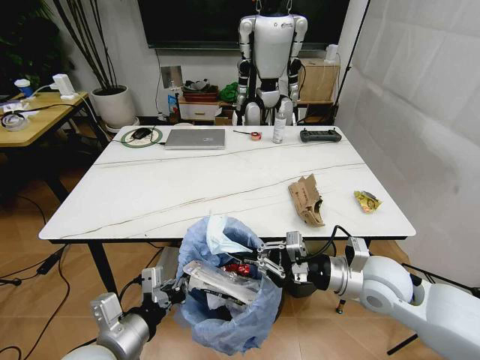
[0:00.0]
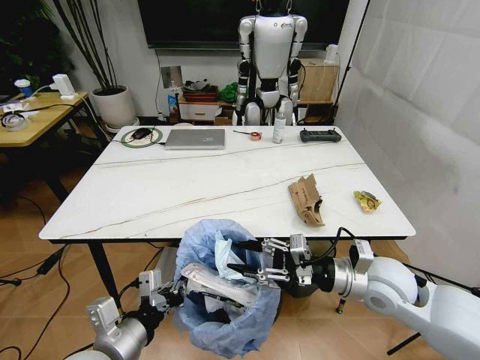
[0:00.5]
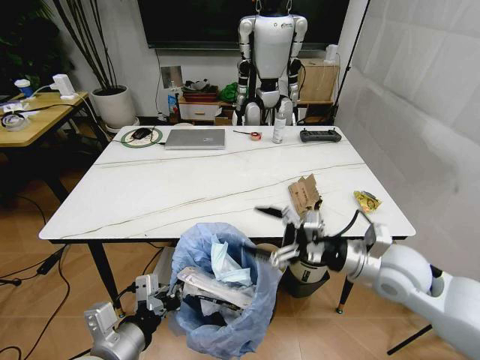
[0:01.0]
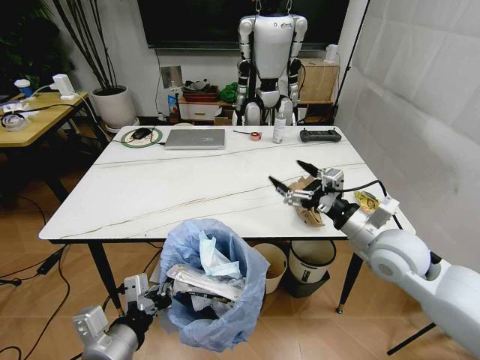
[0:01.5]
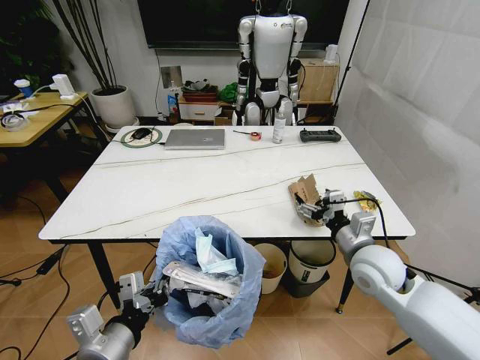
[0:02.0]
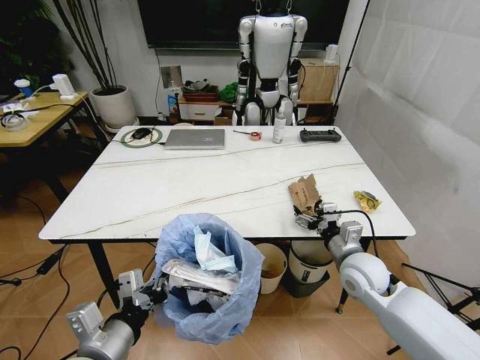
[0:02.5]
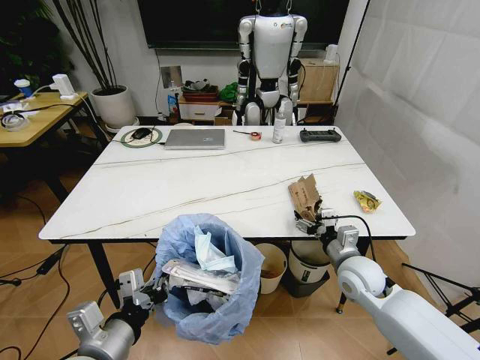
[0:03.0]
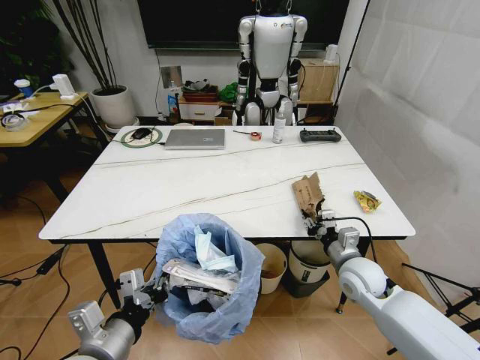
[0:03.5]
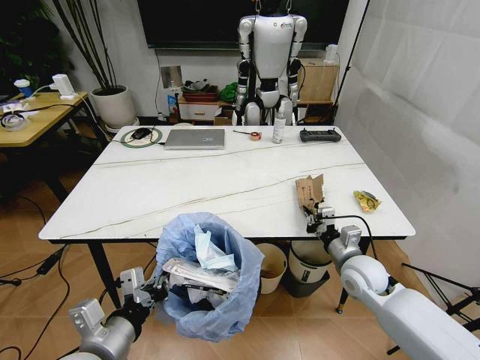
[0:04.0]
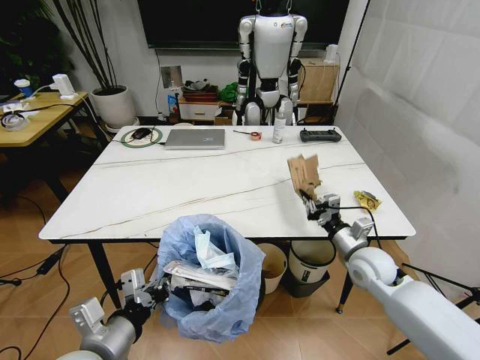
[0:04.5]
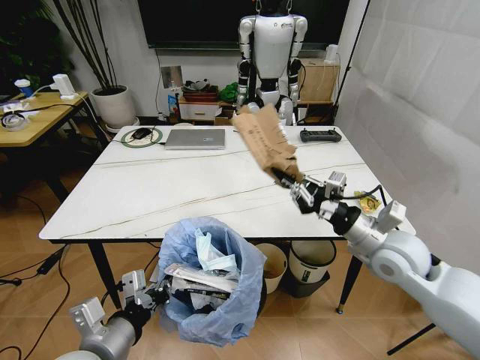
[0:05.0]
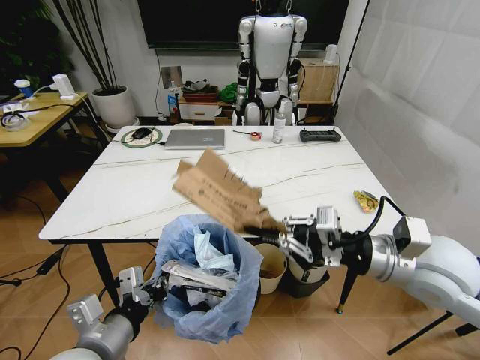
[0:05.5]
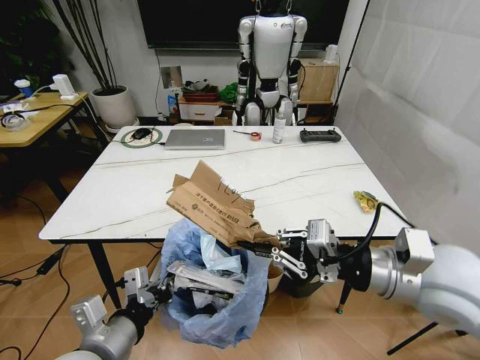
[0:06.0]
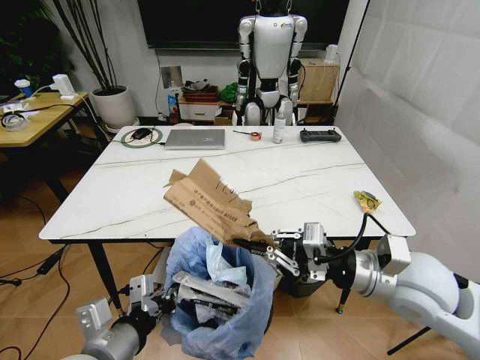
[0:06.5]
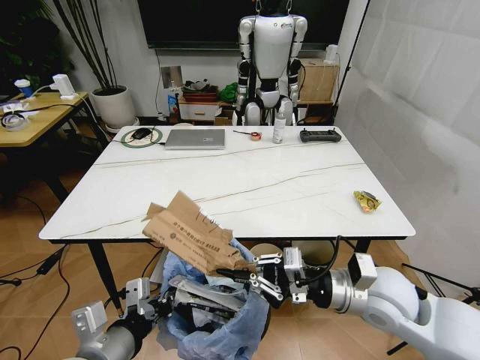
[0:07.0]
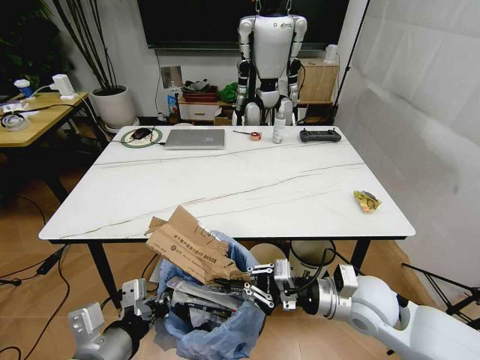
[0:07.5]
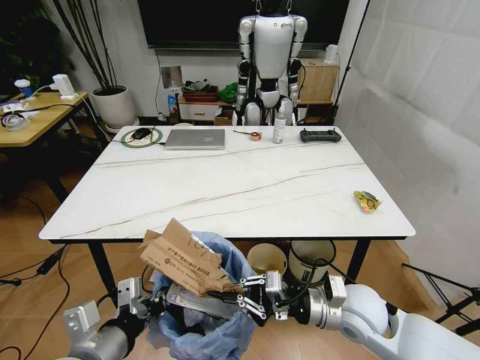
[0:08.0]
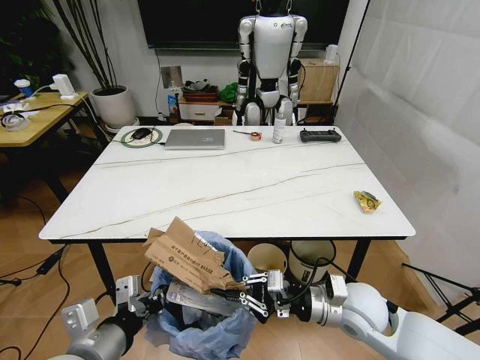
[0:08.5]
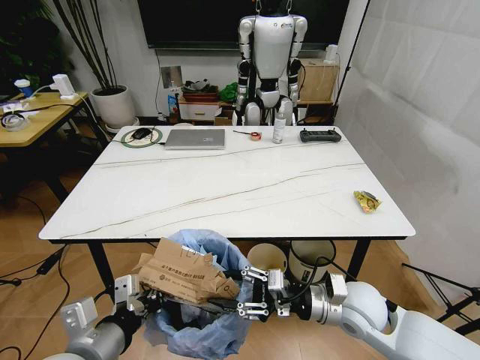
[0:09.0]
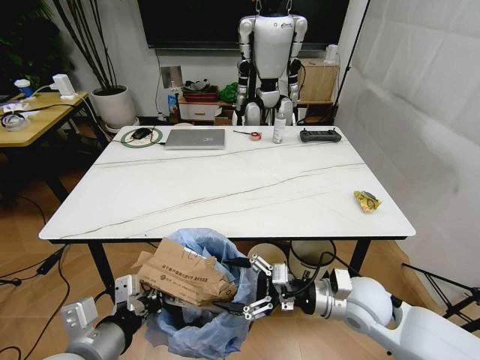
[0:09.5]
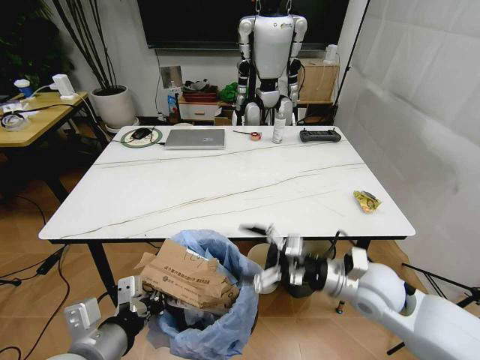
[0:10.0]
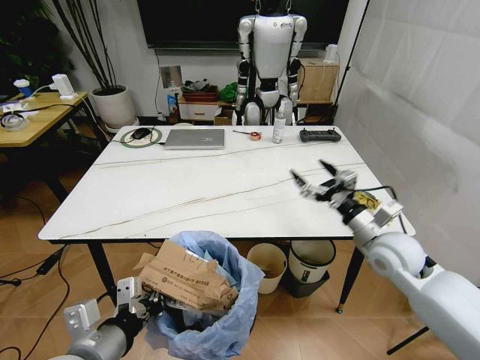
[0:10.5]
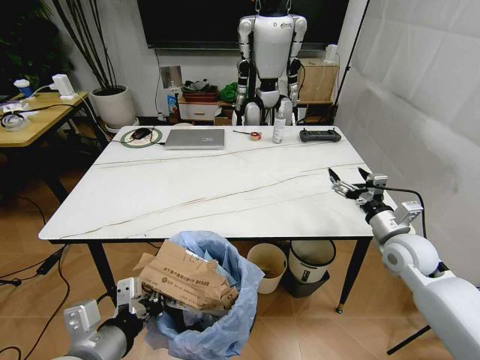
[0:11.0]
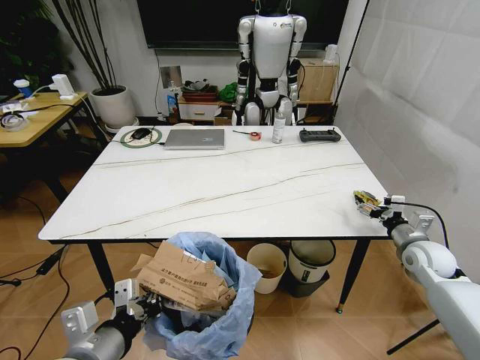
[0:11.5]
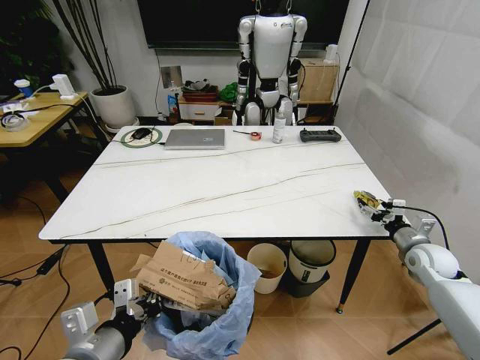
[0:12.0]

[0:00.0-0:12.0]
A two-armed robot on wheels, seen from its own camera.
Task of the whole recording: Pick up the trash bin and place the trash from the table into it.
0:00.0 to 0:02.0: The right gripper opens up.
0:02.0 to 0:04.0: The right gripper shifts approximately 5 cm downward, and closes its fingers.
0:04.0 to 0:06.0: The right gripper moves upward and backward, about 25 cm.
0:06.0 to 0:08.0: The right gripper moves downward, about 15 cm.
0:08.0 to 0:10.0: The right gripper shifts by roughly 5 cm, and opens.
0:10.0 to 0:12.0: The right gripper shifts approximately 25 cm to the right and forward.

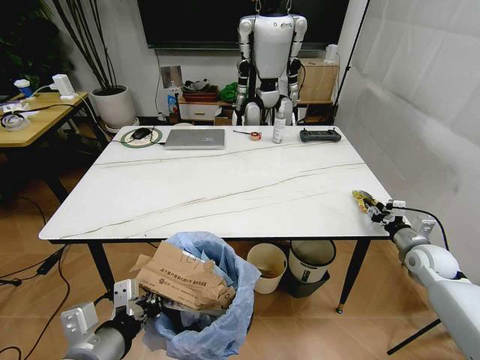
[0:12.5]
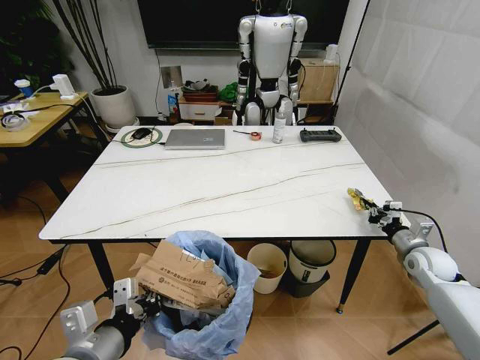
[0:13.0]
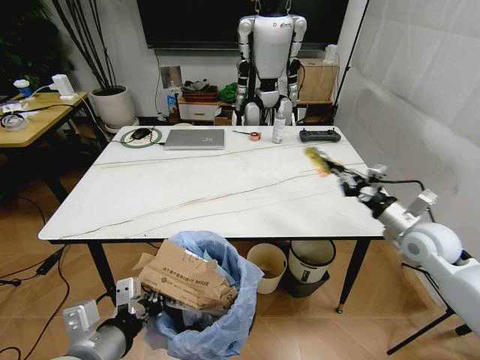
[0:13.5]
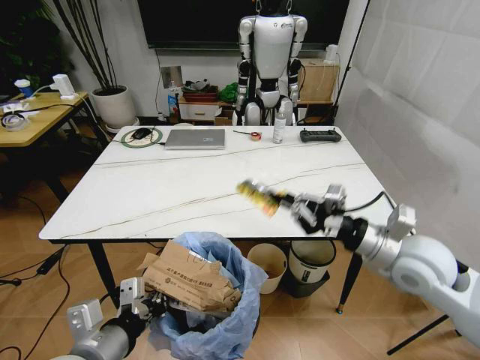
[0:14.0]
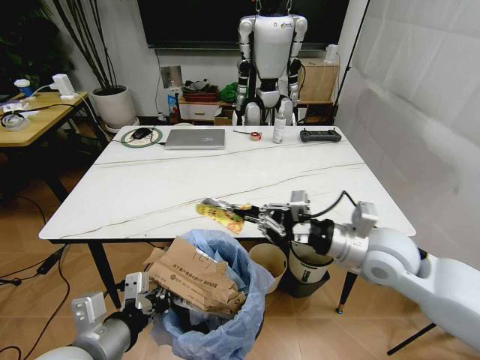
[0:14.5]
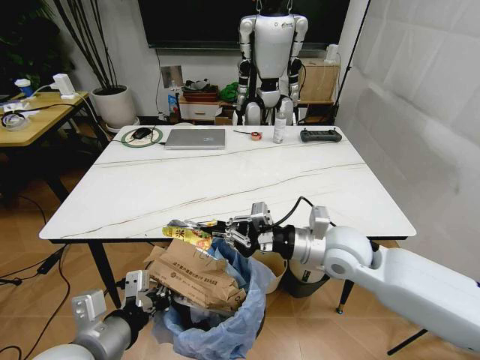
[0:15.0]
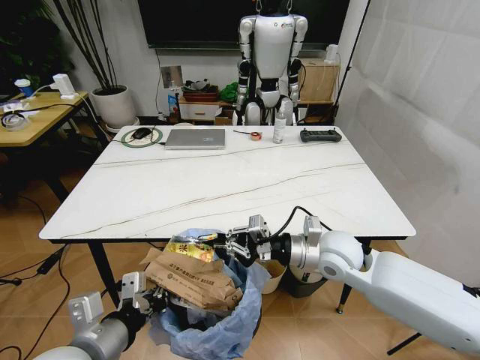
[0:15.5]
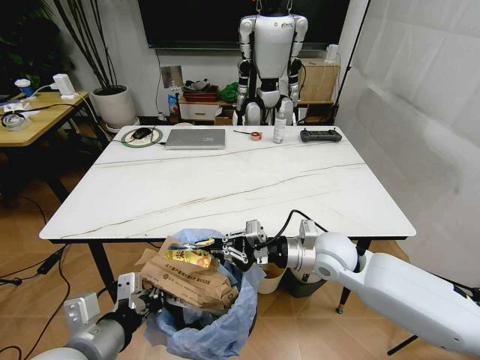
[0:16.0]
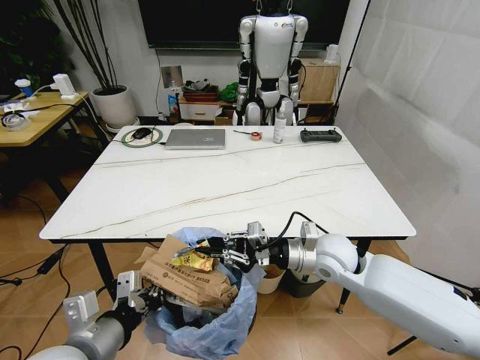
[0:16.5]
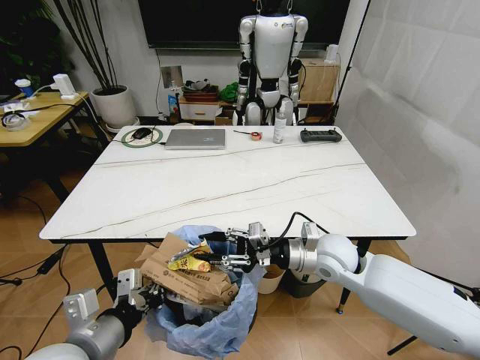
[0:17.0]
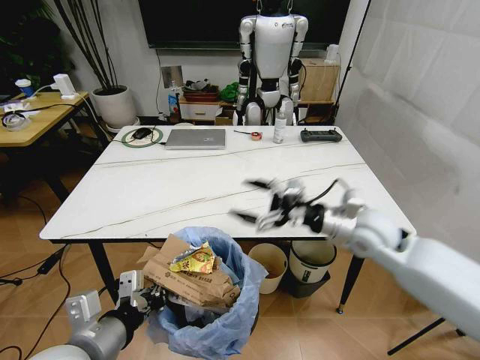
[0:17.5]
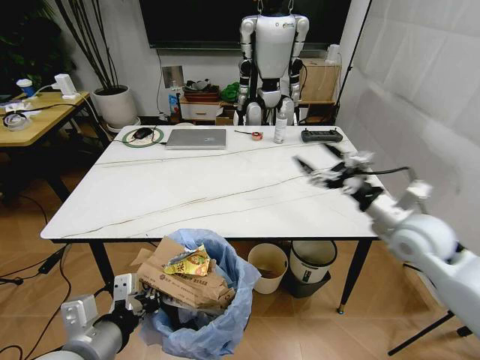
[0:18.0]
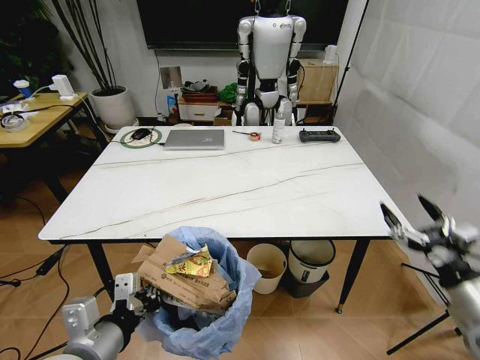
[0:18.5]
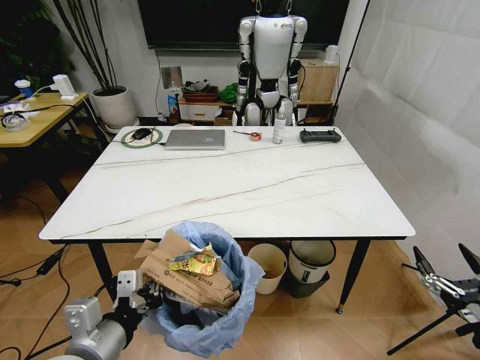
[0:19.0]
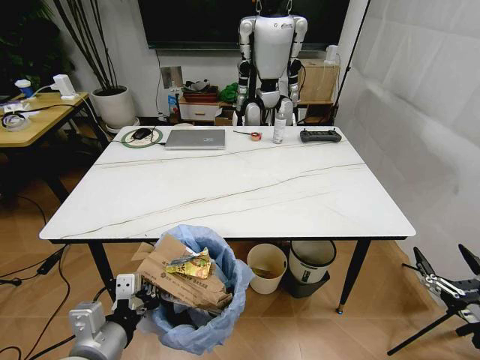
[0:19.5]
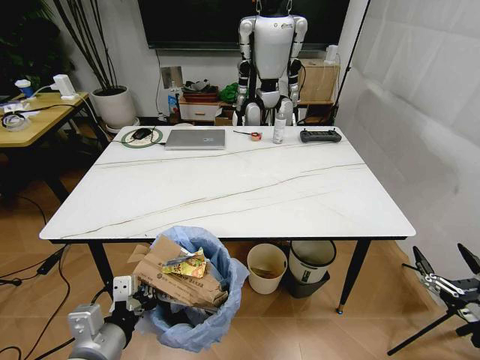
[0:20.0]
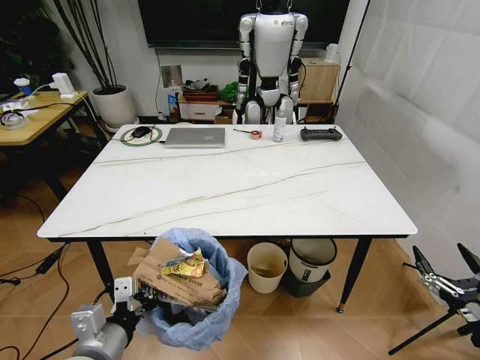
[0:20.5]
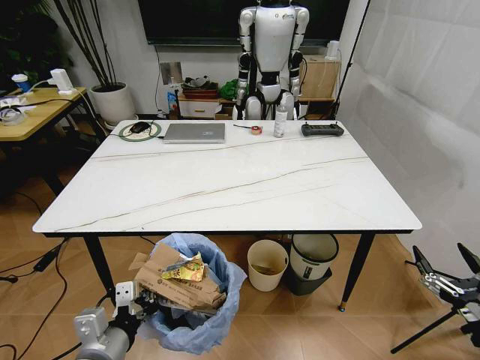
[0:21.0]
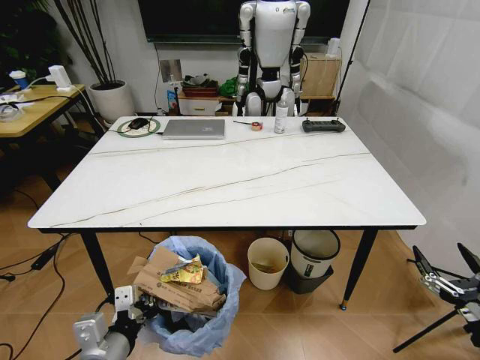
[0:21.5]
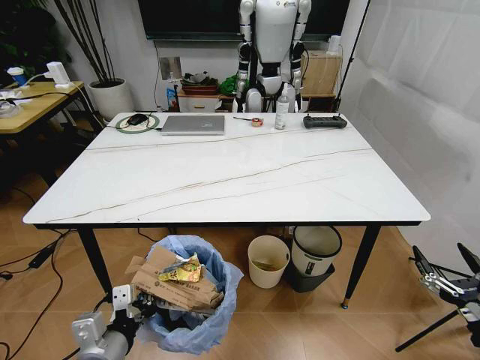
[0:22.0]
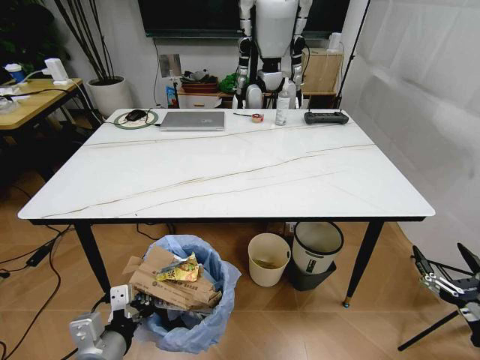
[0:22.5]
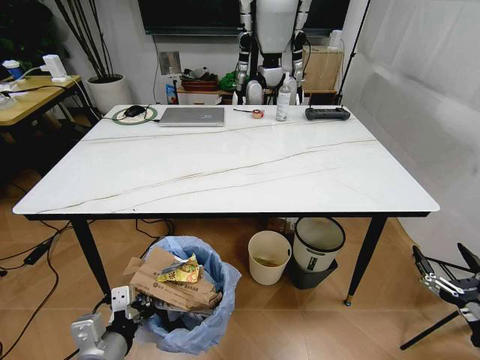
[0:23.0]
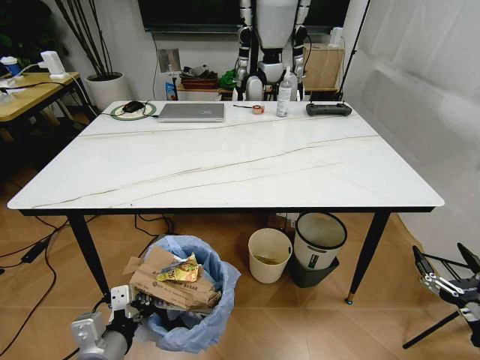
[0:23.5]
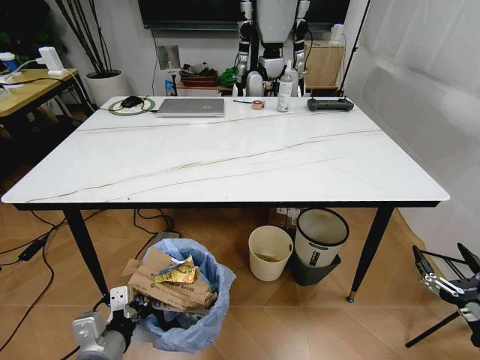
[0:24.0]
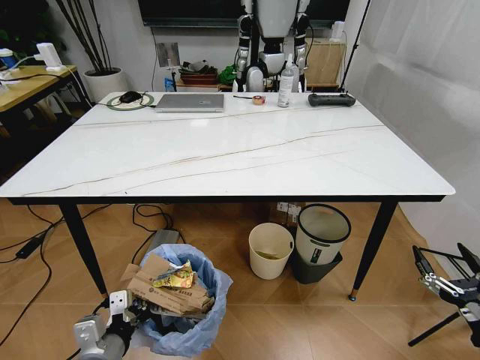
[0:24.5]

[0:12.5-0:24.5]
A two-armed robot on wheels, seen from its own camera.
Task of the whole recording: Pick up the trash bin and place the trash from the table into it.
0:12.5 to 0:14.5: The right gripper shifts approximately 30 cm to the left and upward.
0:14.5 to 0:16.5: The right gripper heads downward and to the left, covering approximately 10 cm.
0:16.5 to 0:18.5: The right gripper travels to the right and backward by roughly 30 cm, and opens up.
0:18.5 to 0:20.5: The left gripper changes place by about 5 cm; the right gripper goes some 10 cm backward and downward.

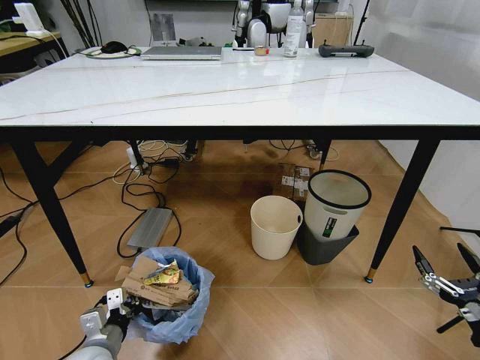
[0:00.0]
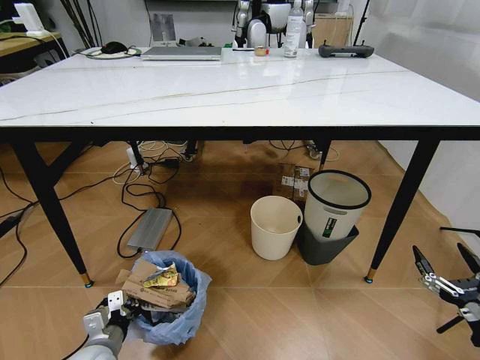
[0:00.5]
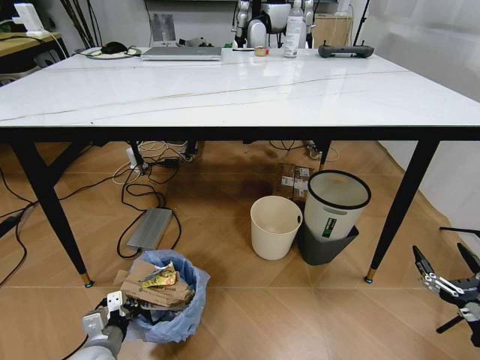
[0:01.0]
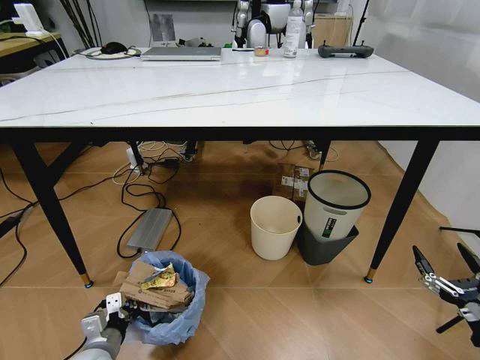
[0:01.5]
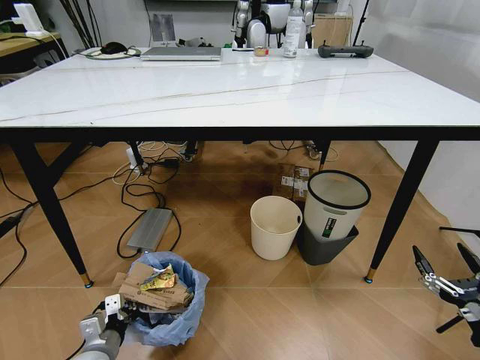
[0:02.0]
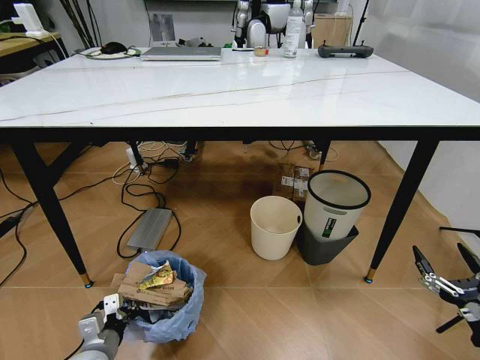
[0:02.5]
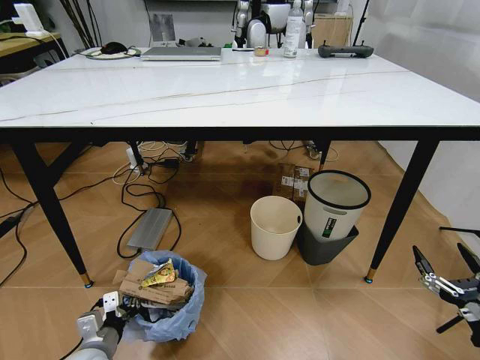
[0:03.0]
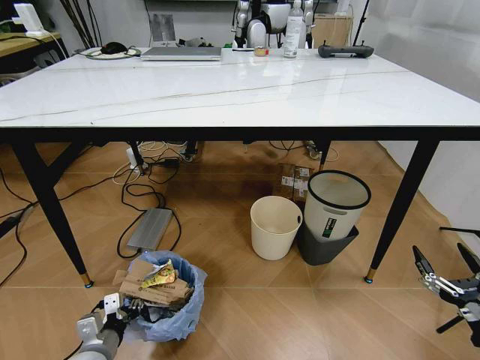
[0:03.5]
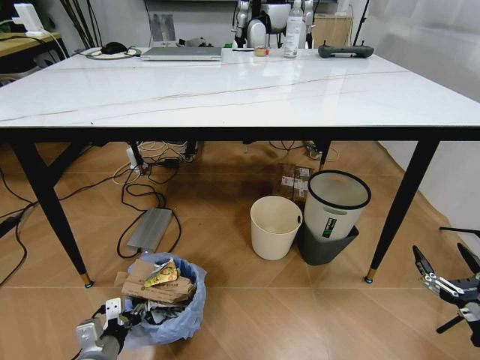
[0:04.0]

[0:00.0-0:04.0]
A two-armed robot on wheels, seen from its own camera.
Task of the whole recording: Pick up the trash bin and place the trash from the table into it.
0:00.0 to 0:02.0: There are only small adjustments of the grippers.
0:02.0 to 0:04.0: The left gripper opens.
